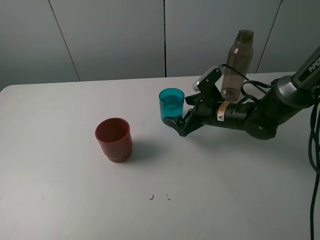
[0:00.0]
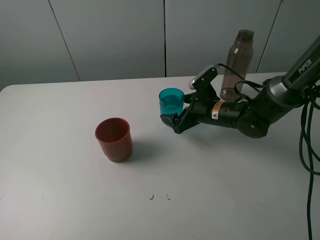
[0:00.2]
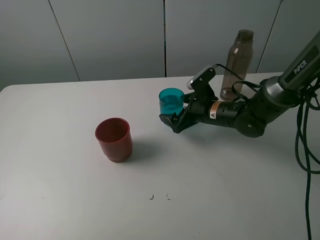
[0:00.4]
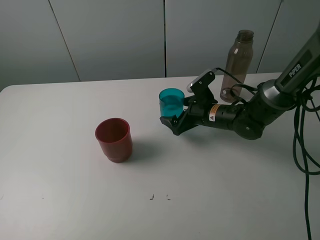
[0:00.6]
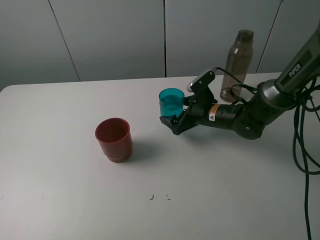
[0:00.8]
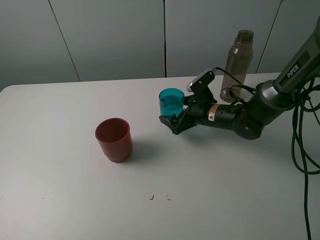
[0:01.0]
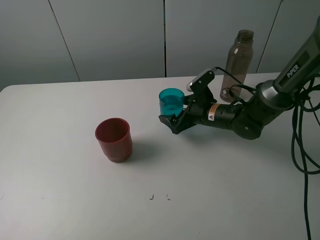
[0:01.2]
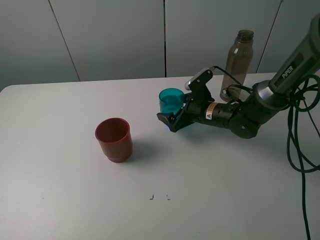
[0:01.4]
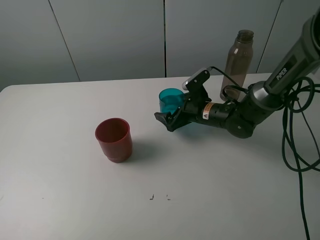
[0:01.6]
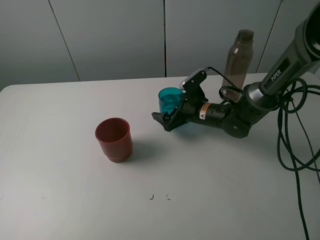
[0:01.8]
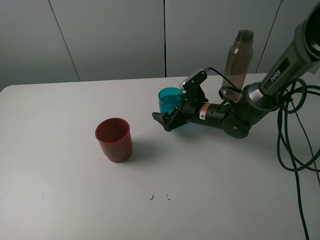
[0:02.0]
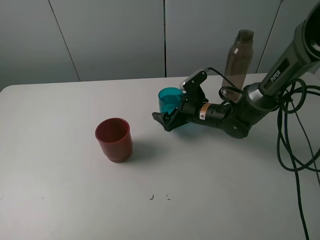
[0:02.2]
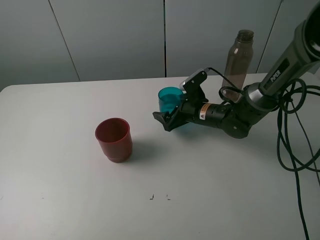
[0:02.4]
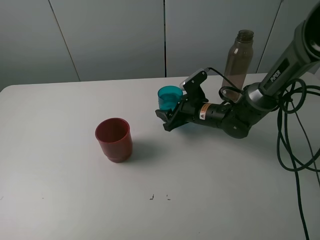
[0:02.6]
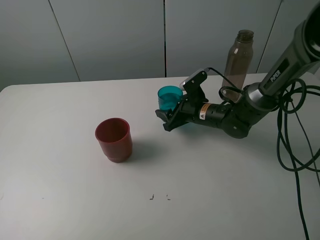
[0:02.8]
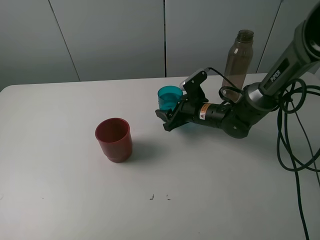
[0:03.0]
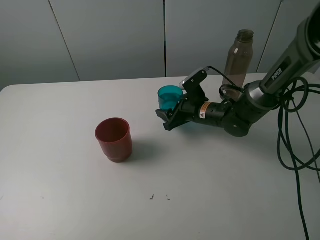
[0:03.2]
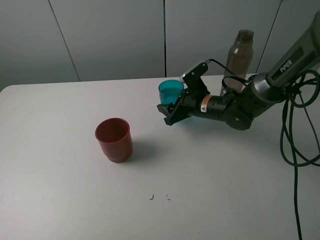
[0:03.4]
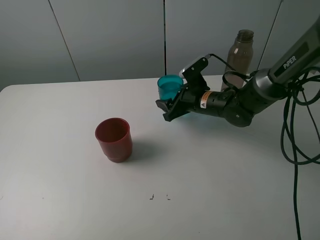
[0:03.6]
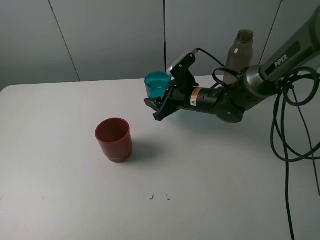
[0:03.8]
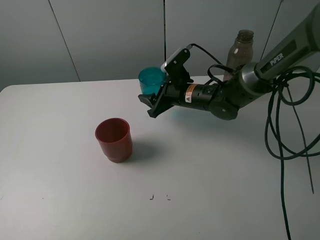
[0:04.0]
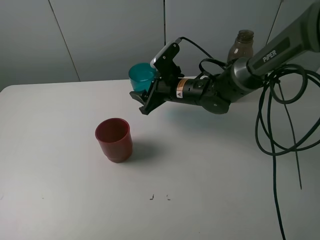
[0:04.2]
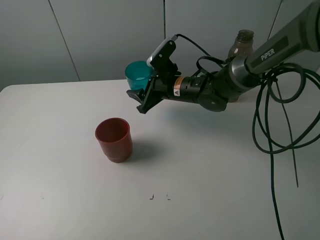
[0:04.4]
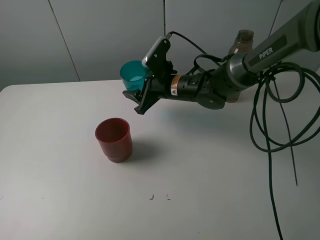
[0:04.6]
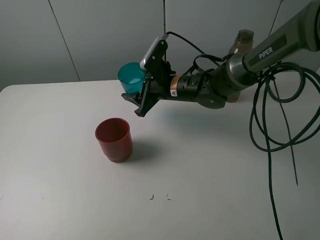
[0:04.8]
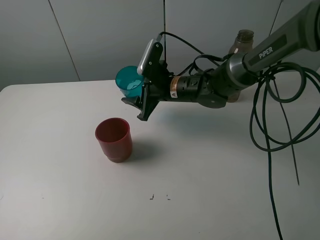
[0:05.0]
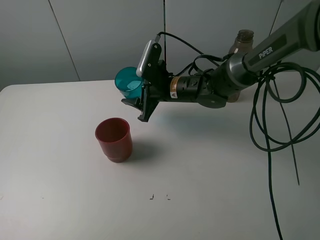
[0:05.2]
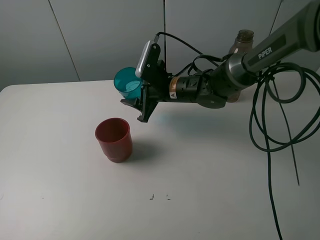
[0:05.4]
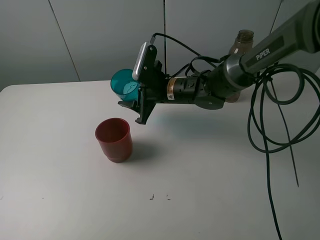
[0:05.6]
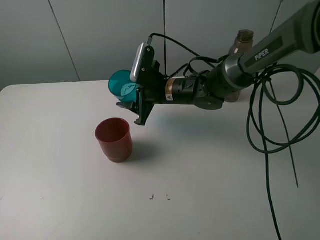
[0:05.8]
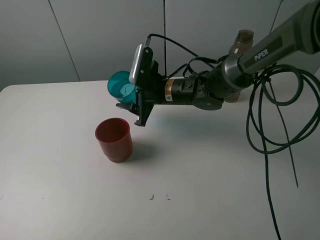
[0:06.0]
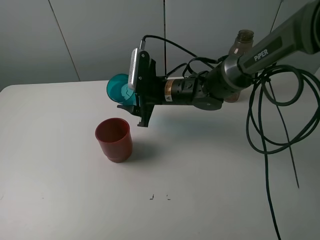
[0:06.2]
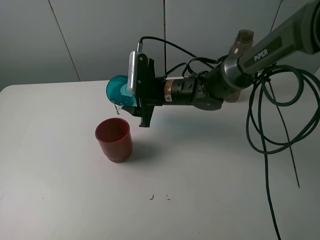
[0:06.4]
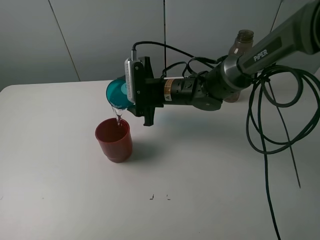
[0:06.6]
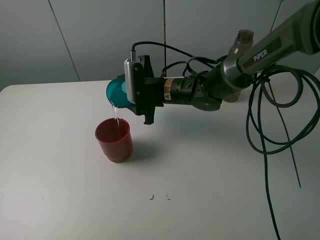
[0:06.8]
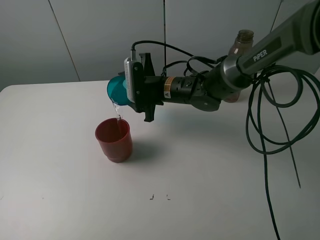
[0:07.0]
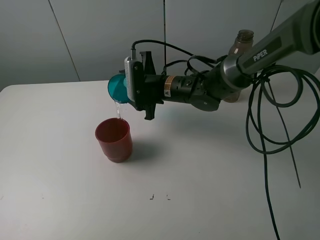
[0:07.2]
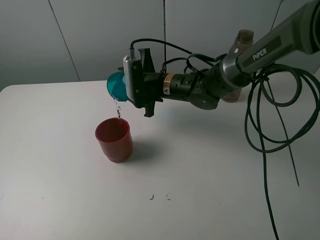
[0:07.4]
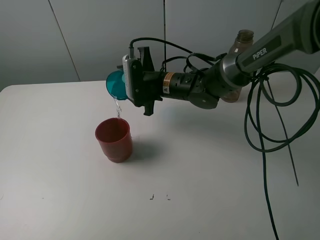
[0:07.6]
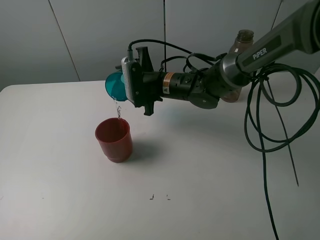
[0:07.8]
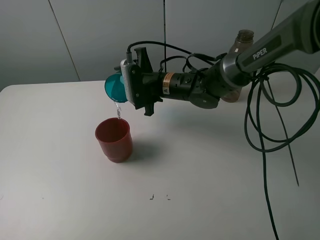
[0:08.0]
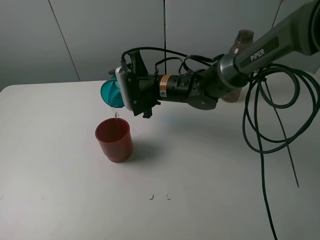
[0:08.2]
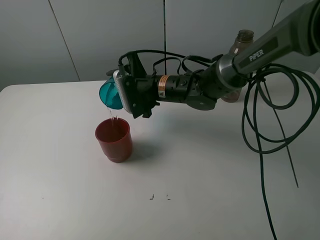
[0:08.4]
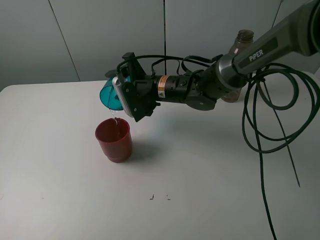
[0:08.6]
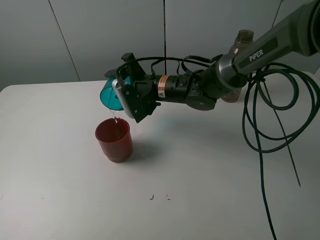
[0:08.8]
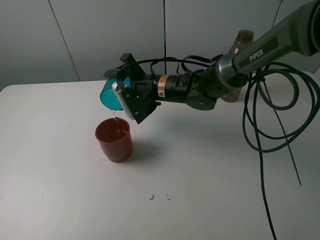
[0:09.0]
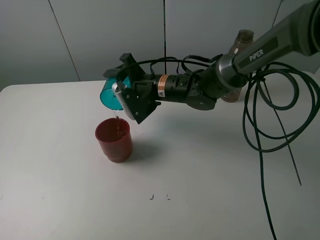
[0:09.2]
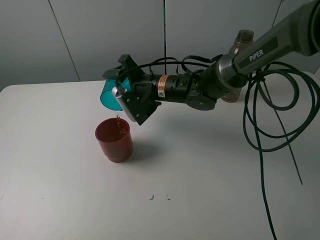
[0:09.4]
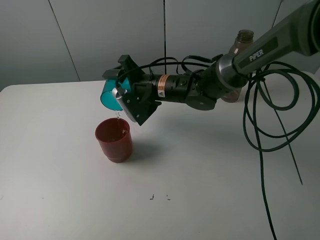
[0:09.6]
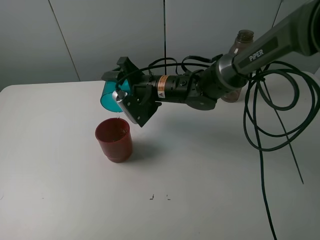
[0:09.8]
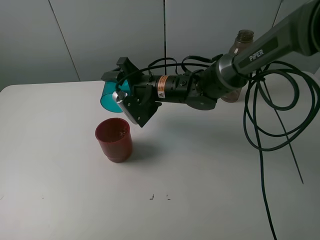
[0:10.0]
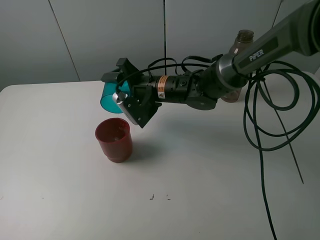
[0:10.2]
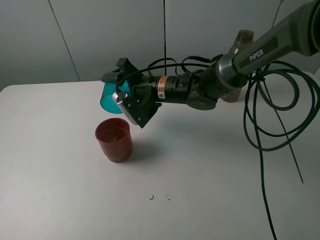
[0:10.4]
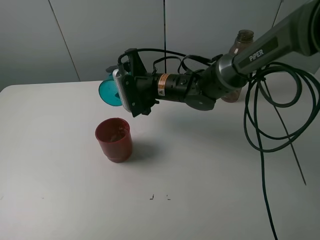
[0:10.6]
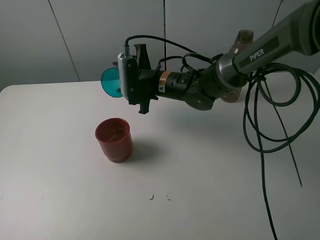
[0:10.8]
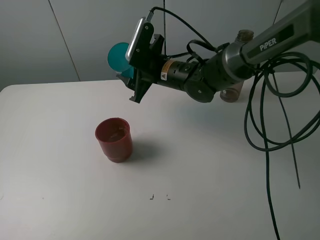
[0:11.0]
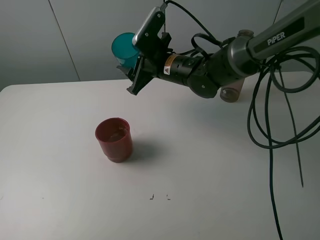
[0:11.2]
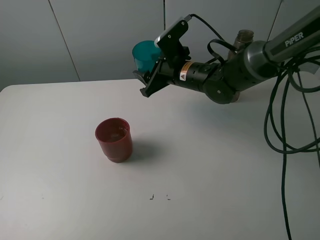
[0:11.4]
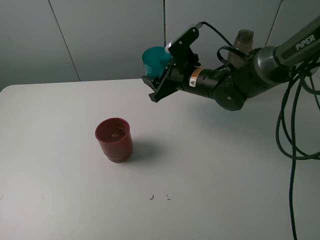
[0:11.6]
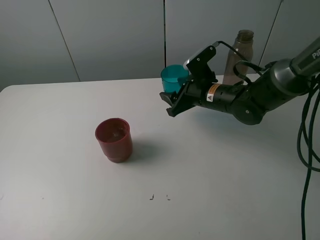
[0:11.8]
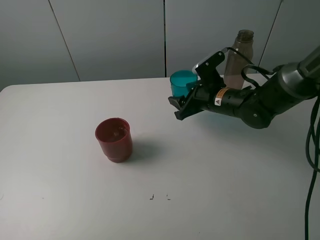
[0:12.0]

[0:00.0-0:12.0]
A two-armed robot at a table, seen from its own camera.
Task of the whole recording: pick up the bottle and pour water into the cup, then pick up the cup containing water and pour it into another cup.
Step, 0:00.0 to 0:02.6: Grasp the blue cup with the right gripper.
Step, 0:02.8 to 0:10.4: Pour water from blue cup to red cup with the right gripper.
0:00.0 to 0:01.6: The grippers move only a little.
0:01.6 to 0:03.0: The right gripper closes.
0:03.0 to 0:04.4: The right gripper travels to the left and upward by roughly 10 cm.
0:09.0 to 0:10.4: The grippers move only a little.
0:10.4 to 0:12.0: The right gripper moves to the right, some 15 cm.

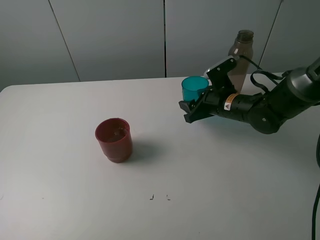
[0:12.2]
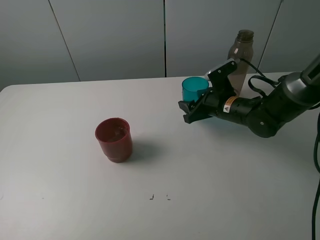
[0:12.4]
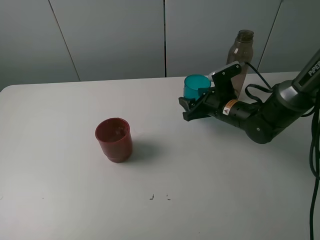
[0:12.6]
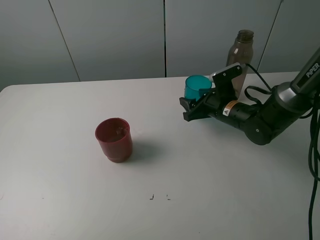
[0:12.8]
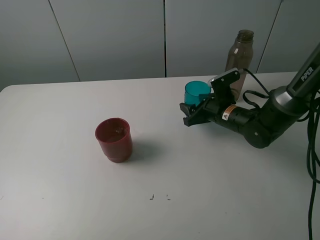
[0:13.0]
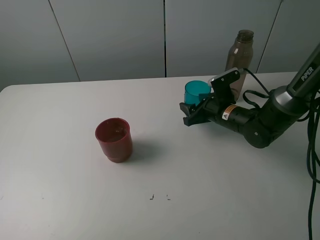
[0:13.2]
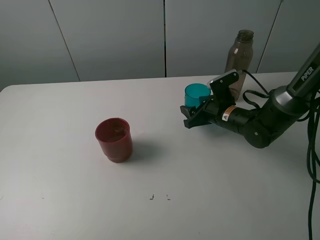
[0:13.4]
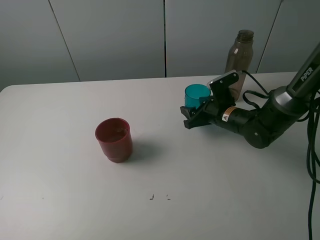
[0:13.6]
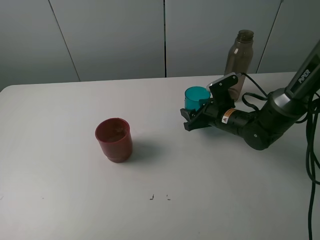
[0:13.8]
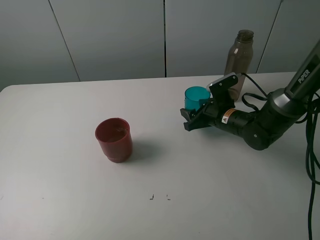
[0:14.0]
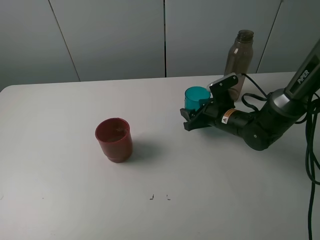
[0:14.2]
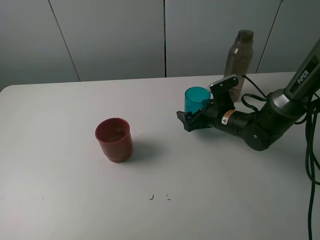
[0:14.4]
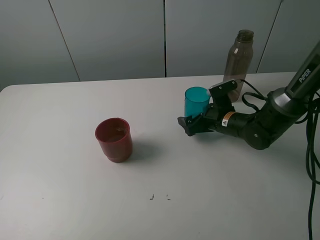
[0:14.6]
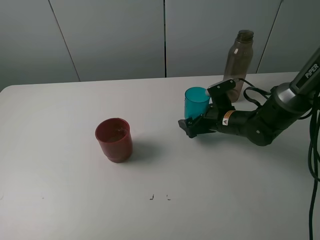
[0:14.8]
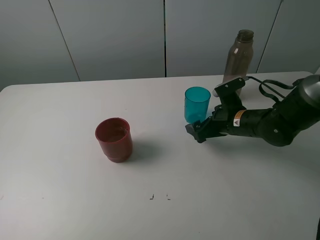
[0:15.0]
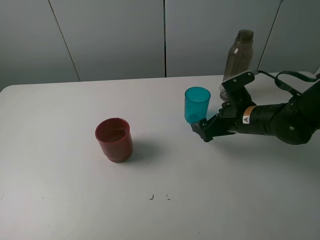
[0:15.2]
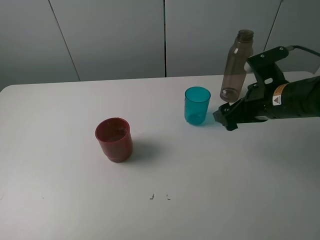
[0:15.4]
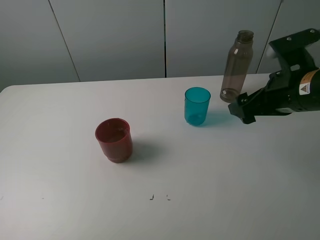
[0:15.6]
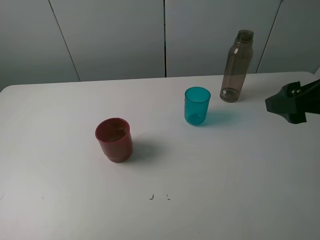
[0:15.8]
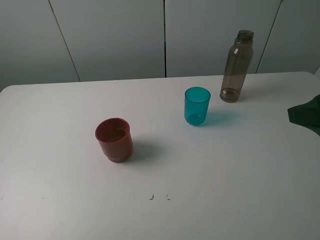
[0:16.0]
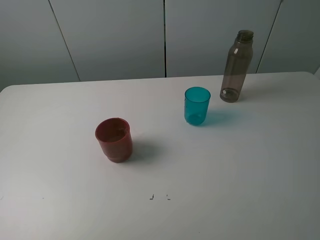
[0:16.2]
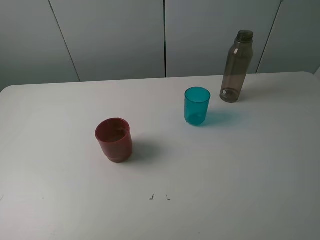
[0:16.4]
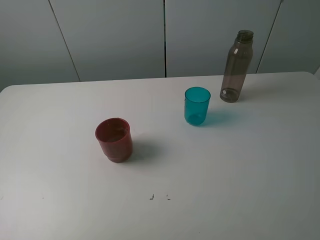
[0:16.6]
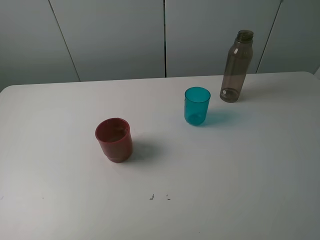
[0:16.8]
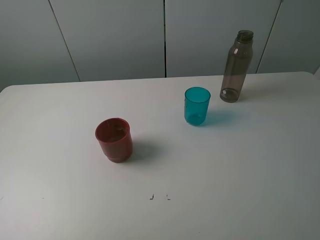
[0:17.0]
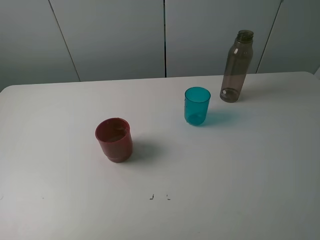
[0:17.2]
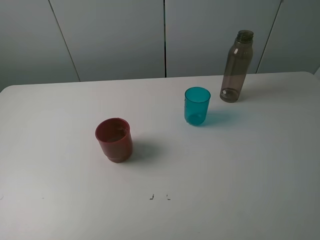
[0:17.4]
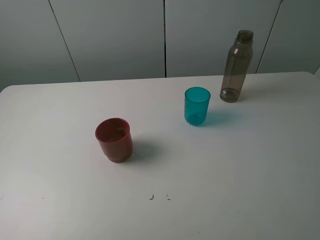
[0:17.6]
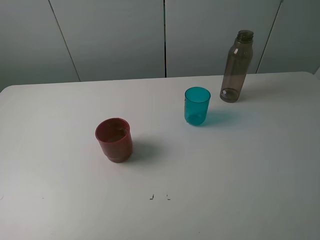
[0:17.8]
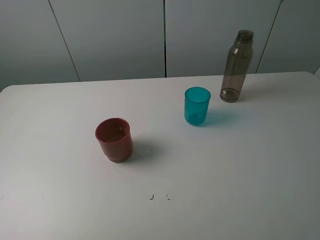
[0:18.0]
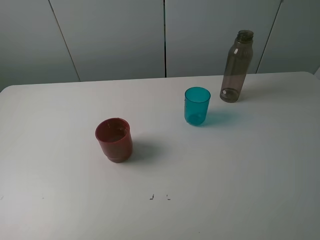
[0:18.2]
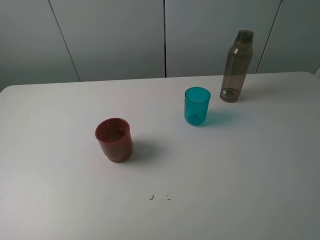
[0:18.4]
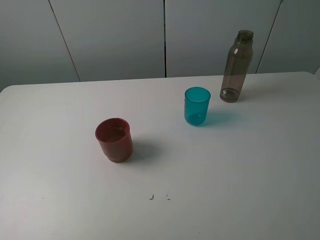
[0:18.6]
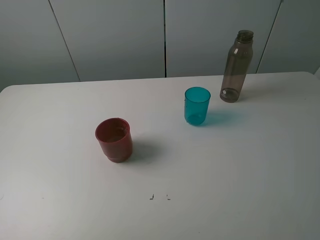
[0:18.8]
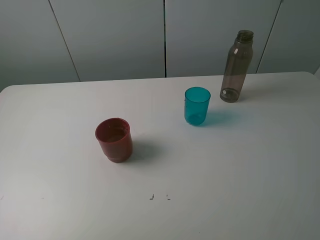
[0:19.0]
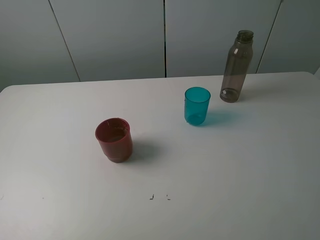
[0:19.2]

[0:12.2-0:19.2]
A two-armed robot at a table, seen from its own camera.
Task of the whole recording: pick up the bottle and pour water into the cup, then pick up the cup containing water and pour it into another cup.
Step, 0:12.2 to 0:14.6: Place the blue cup with the right gripper.
0:12.2 to 0:13.6: The grippers make only small movements.
0:13.6 to 0:15.0: The right gripper opens.
0:15.0 to 0:16.4: The right gripper shifts roughly 35 cm backward, upward and to the right.

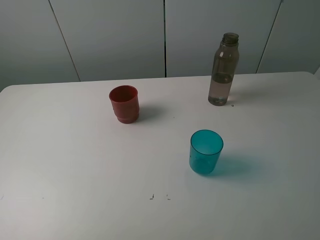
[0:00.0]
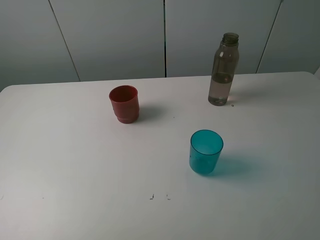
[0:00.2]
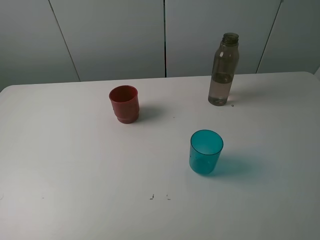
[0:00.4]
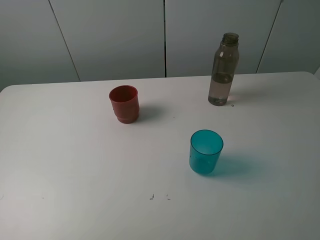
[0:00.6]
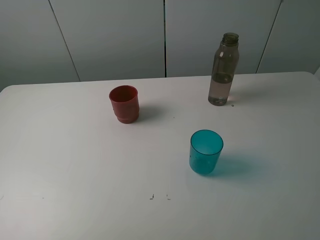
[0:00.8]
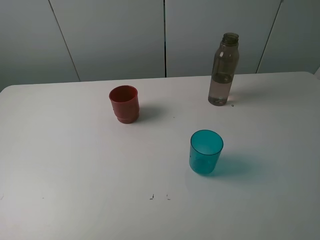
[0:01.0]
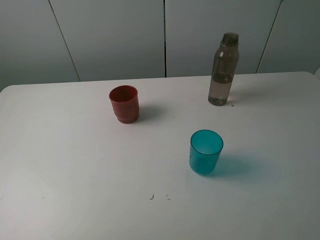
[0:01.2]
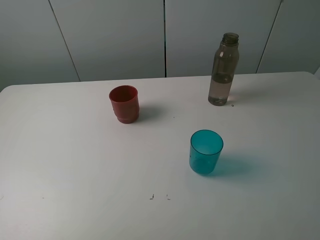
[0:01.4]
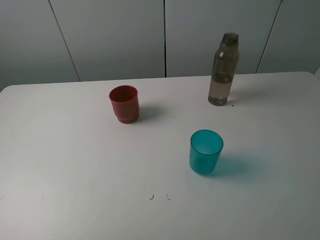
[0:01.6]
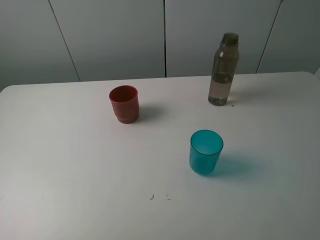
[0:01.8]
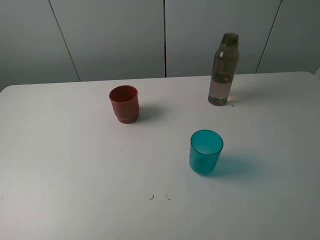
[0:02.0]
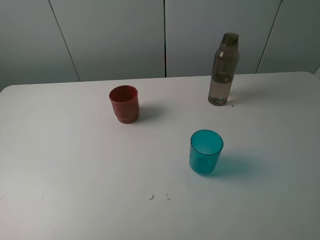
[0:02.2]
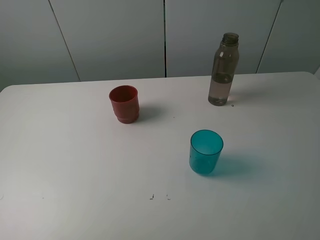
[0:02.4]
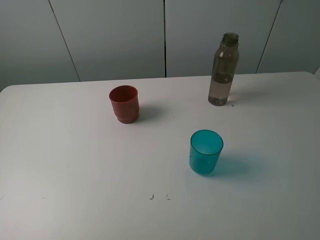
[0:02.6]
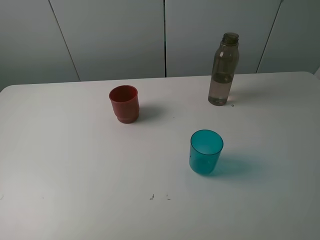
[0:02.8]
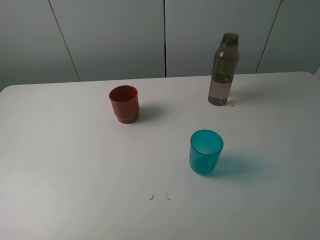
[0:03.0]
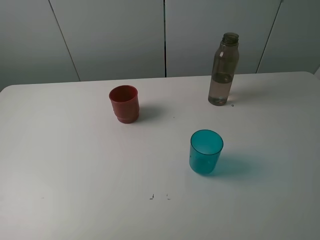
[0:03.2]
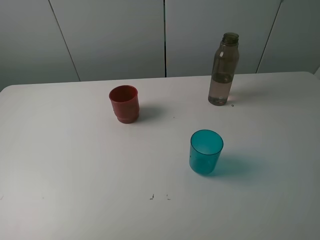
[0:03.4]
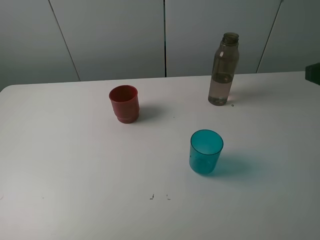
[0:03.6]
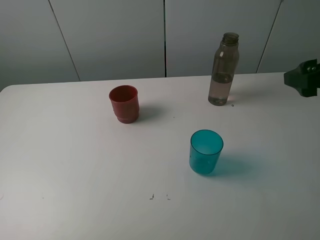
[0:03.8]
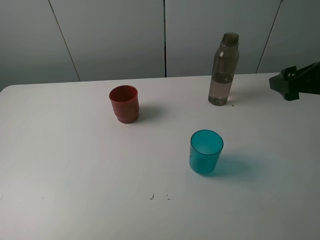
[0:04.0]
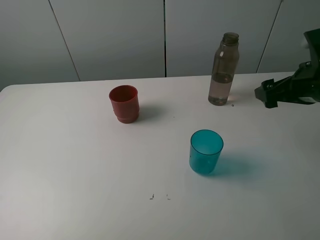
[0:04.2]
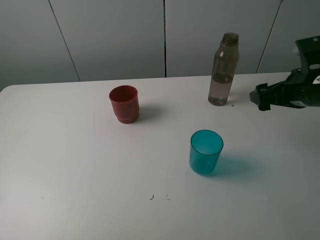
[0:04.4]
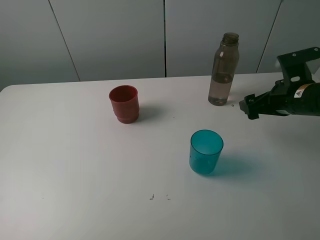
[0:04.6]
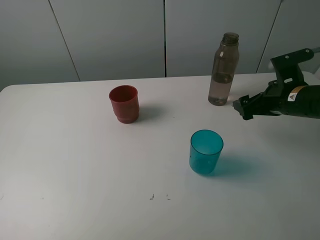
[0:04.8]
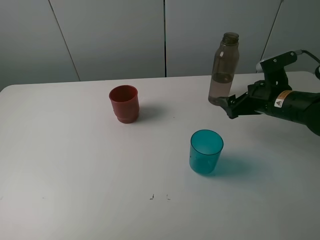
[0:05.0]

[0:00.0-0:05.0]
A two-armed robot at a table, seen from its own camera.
Task of the whole recording: pick up the bottle and pour water into the cup, then pick up the cup containing water and pour it into another cup.
0:00.0 to 0:01.6: Both grippers stay about where they are.
0:03.4 to 0:05.0: The right gripper goes some 25 cm downward and forward.
